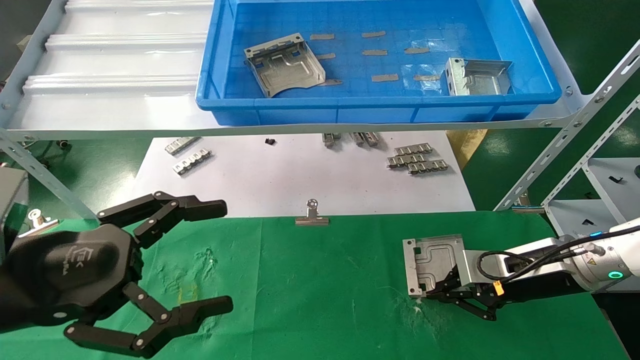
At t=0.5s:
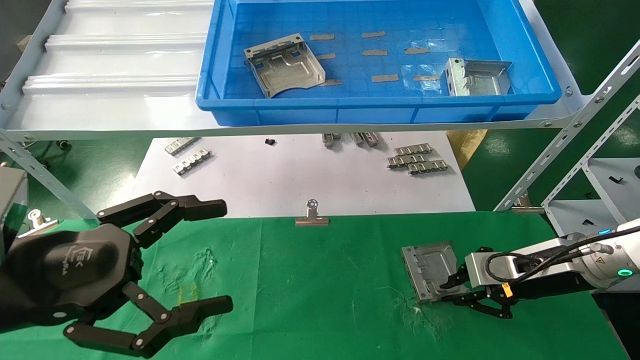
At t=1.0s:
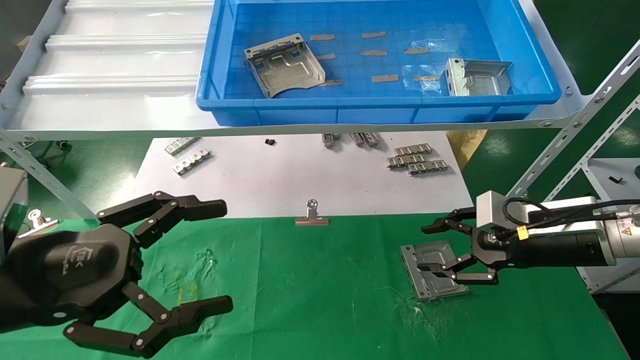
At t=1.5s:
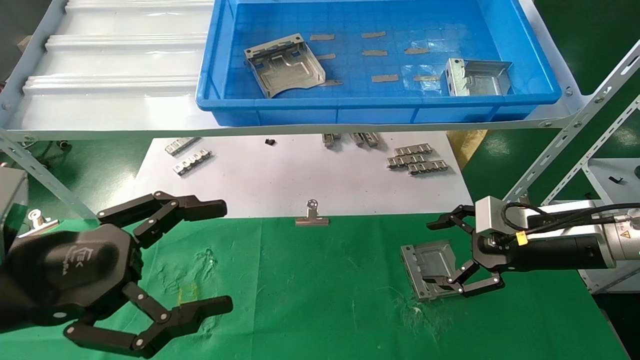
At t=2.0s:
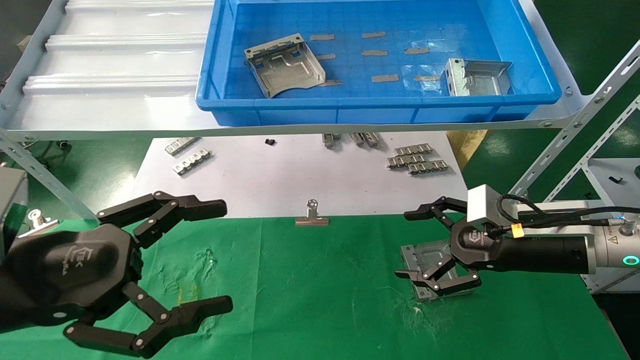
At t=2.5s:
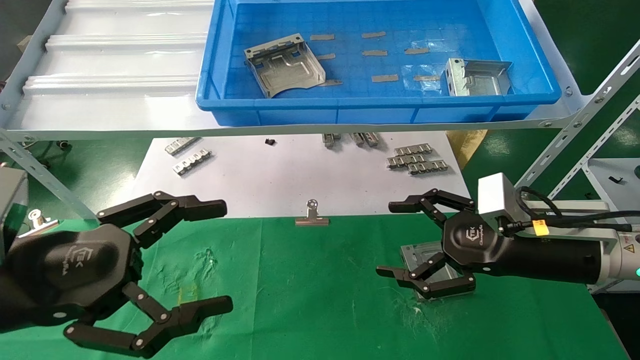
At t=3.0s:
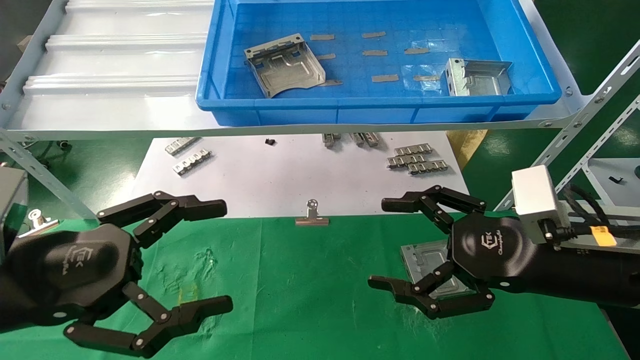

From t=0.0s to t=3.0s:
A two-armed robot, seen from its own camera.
Task of the whole recording: use the mechanical arm to pick up the parts and place them on the table.
From t=0.0s to t=1.5s: The right gripper opens.
From t=1.5s to t=3.0s: The right gripper goes approximately 10 cm backward and to the left.
